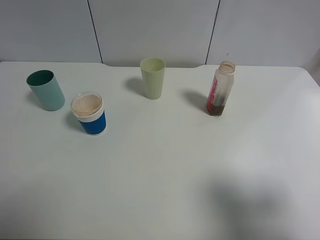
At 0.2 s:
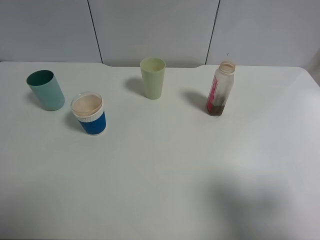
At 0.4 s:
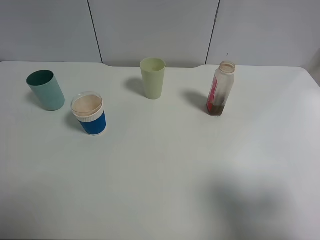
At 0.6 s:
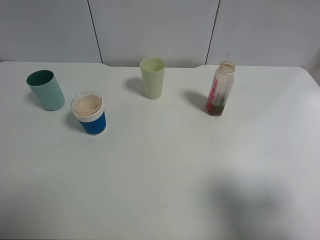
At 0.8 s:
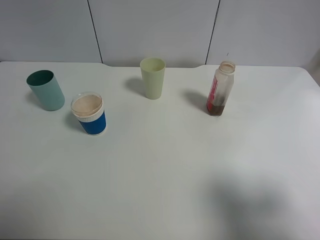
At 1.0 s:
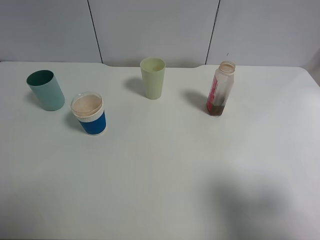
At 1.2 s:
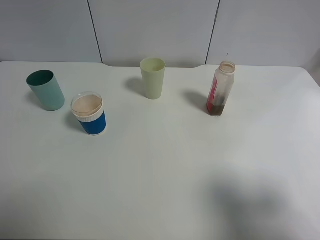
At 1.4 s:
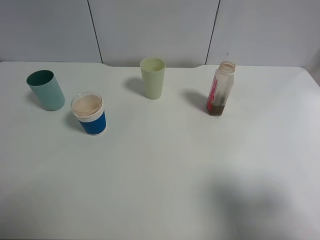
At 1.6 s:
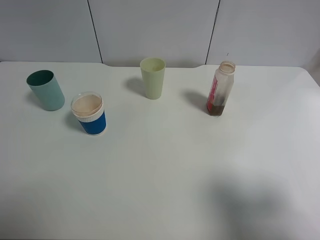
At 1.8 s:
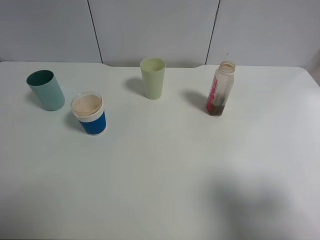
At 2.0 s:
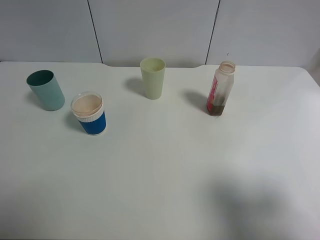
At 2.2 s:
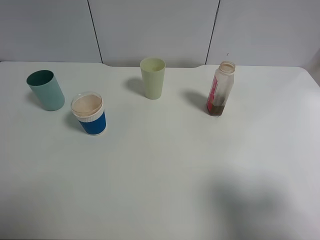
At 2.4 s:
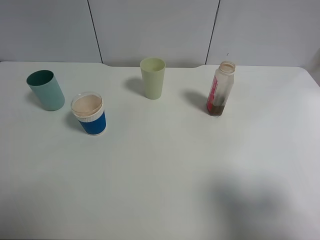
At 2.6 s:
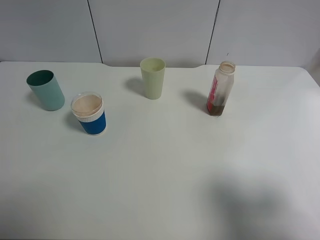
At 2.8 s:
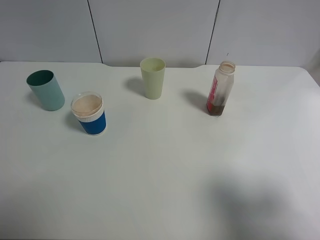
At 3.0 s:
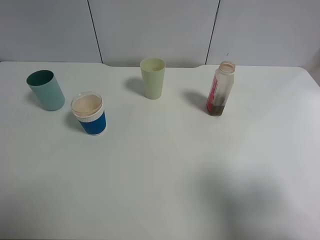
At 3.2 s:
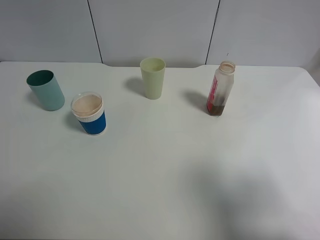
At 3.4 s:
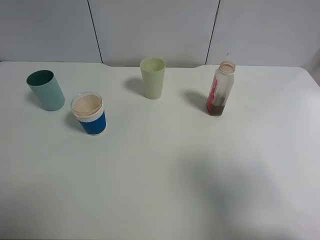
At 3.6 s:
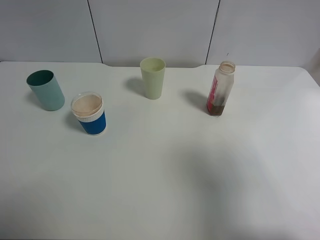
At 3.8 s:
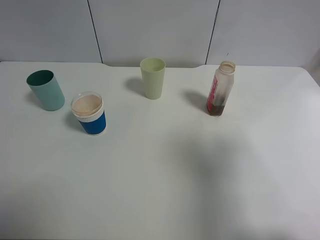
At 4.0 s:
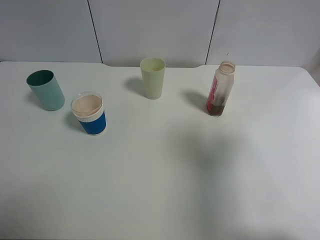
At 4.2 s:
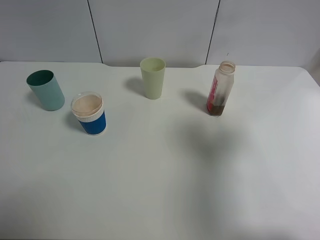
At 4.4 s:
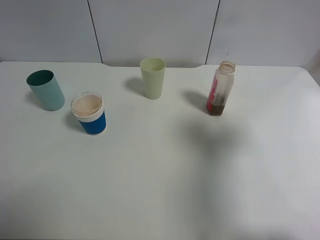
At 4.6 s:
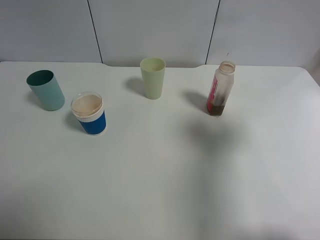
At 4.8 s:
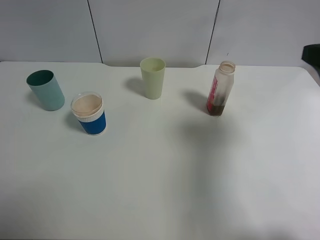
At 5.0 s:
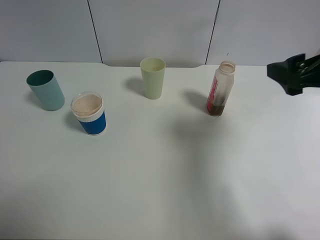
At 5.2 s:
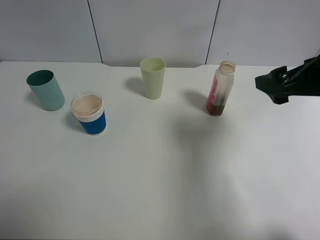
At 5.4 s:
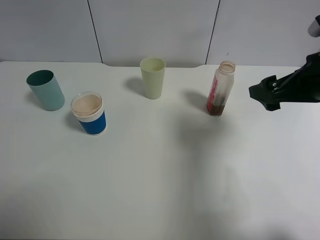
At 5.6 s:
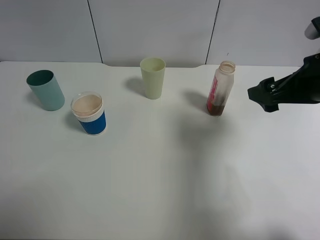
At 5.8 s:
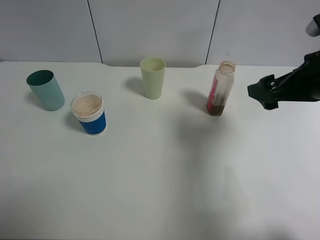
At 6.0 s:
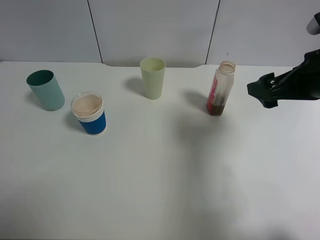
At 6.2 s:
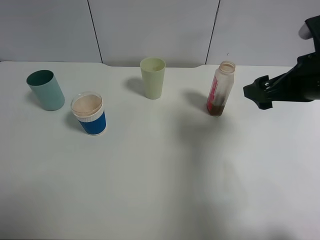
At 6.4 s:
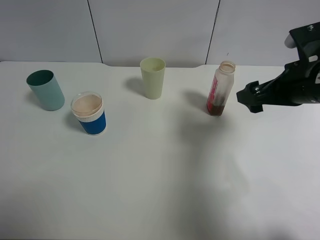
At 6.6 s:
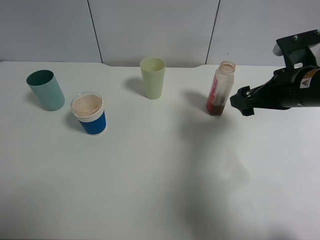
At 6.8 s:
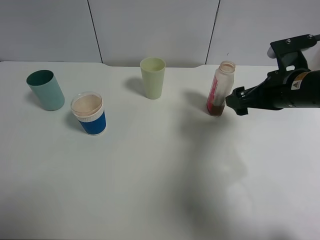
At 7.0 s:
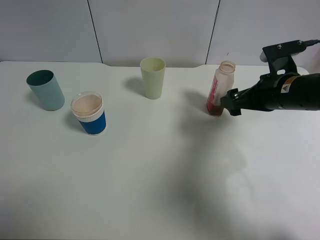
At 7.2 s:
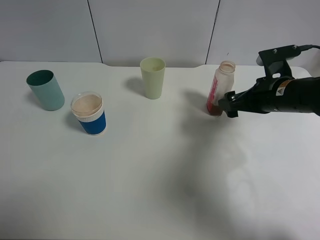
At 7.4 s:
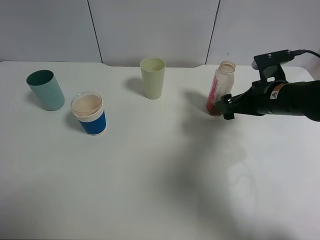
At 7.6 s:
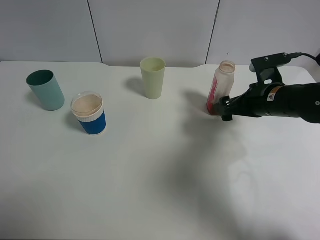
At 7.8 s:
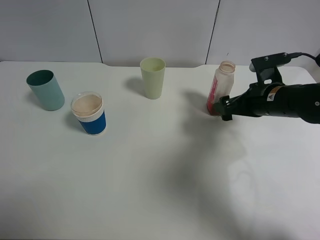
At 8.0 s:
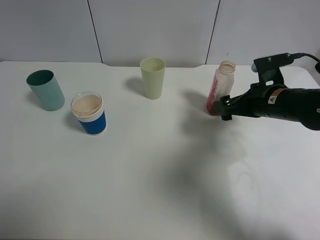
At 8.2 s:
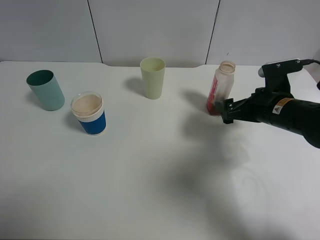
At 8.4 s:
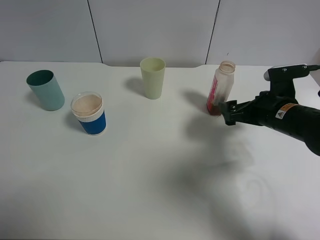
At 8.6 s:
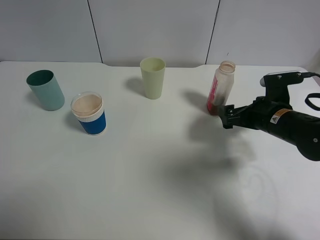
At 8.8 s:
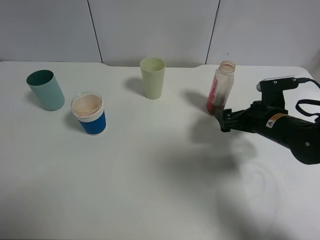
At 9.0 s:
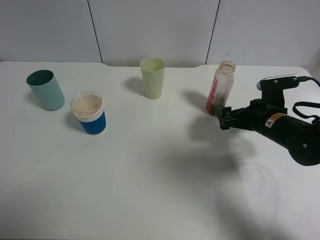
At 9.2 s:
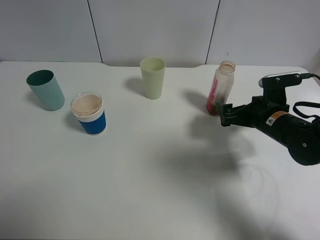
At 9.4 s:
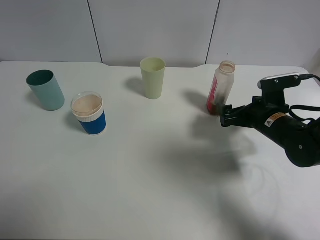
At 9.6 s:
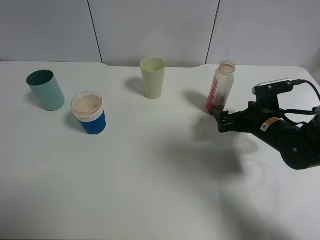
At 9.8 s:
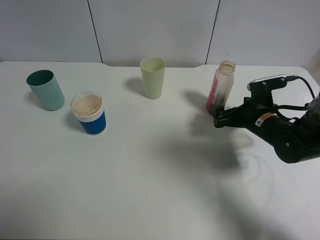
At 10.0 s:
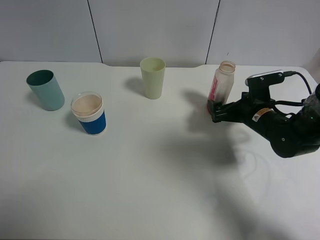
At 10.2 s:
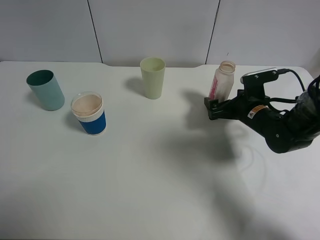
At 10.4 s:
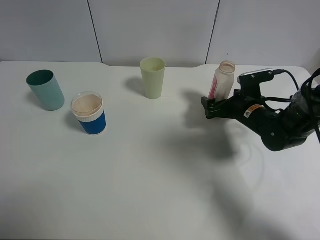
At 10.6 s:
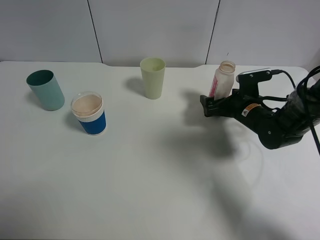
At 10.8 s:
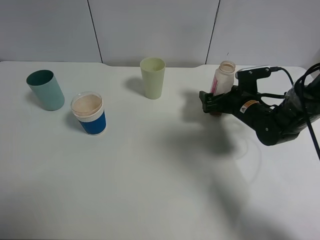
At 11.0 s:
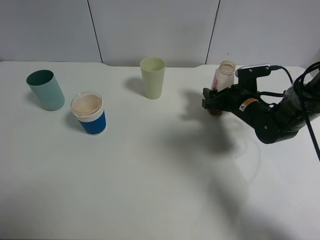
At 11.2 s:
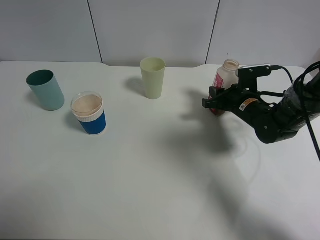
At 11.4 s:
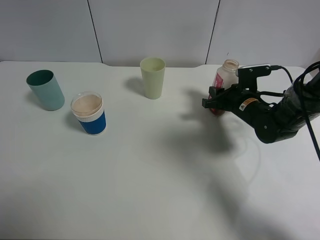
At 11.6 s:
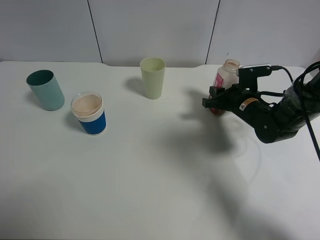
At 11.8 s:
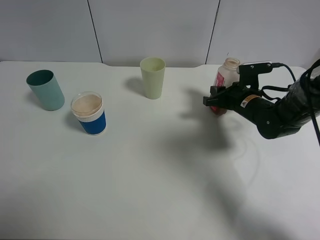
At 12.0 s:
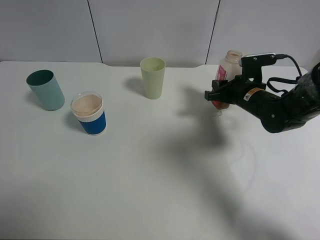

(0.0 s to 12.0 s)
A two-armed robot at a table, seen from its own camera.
Task of the whole recording: use a clamp to hold the bottle of the drink, pour the beverage into a random cup, then clamp the cup containing the drink and pour the drink into another random cup.
0.0 s - 1.6 s: Both grippers stay put.
3.0 s - 4.4 s: The right gripper moves forward, some 15 cm.
4.4 s - 6.0 s: The right gripper travels forward, downward and to the left by some 10 cm.
6.0 s - 7.6 s: The right gripper moves downward and forward, about 15 cm.
7.6 s - 9.0 s: There are only small adjustments of the grippers.
9.0 s - 10.4 s: The right gripper moves forward, about 5 cm.
10.4 s - 12.0 s: The right gripper closes up.

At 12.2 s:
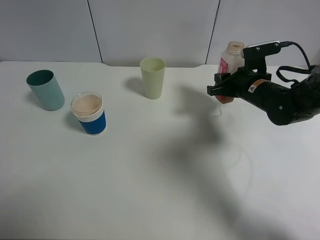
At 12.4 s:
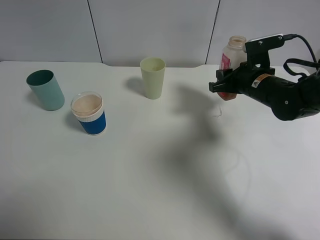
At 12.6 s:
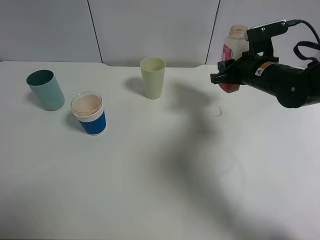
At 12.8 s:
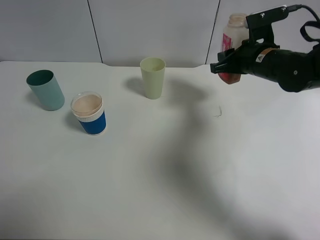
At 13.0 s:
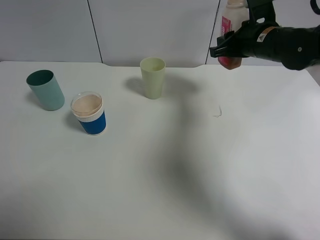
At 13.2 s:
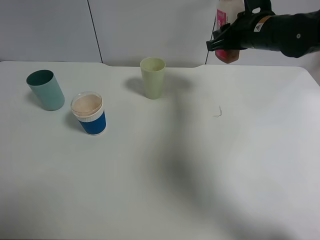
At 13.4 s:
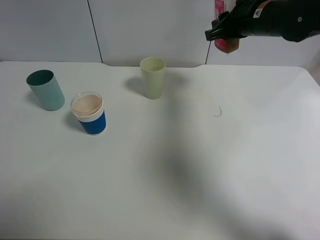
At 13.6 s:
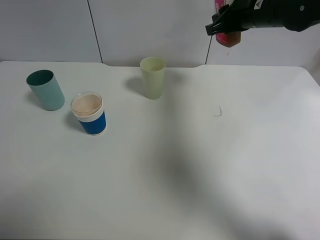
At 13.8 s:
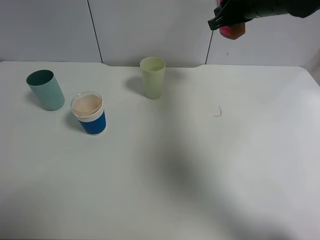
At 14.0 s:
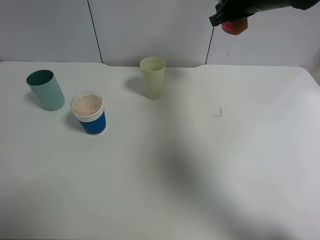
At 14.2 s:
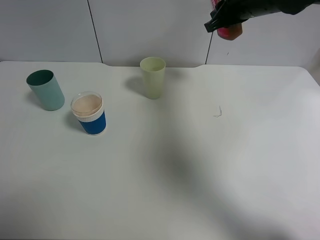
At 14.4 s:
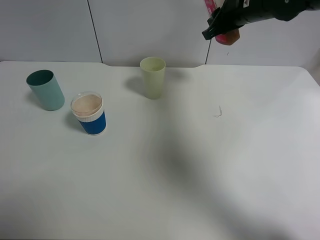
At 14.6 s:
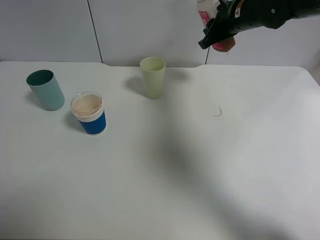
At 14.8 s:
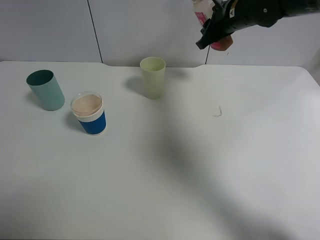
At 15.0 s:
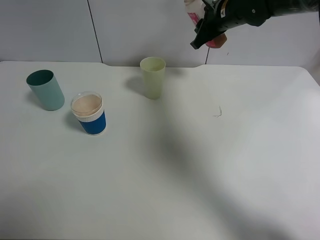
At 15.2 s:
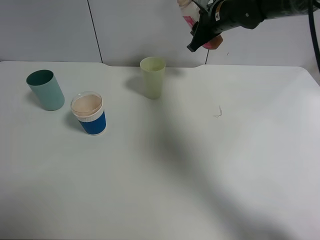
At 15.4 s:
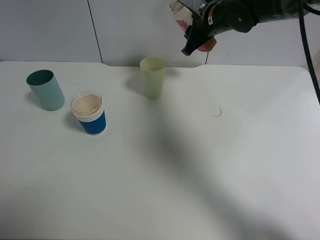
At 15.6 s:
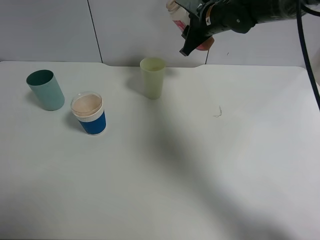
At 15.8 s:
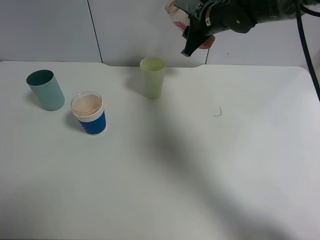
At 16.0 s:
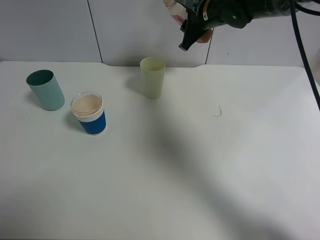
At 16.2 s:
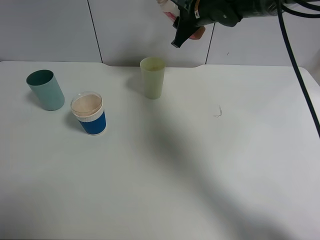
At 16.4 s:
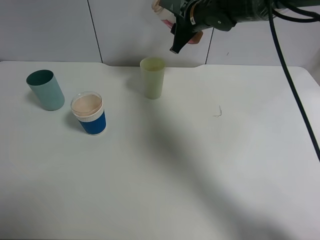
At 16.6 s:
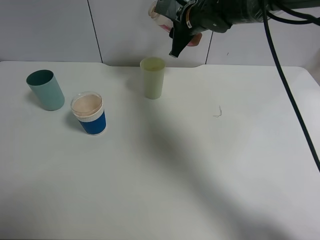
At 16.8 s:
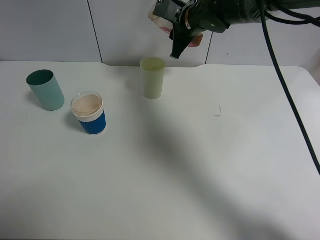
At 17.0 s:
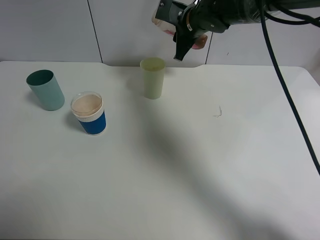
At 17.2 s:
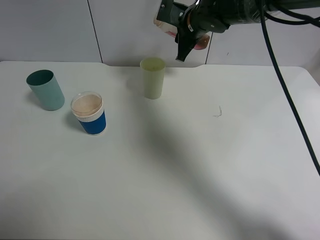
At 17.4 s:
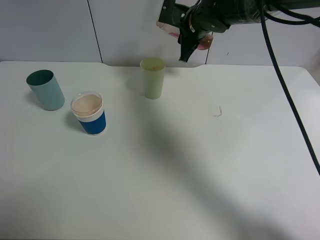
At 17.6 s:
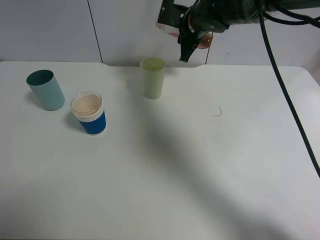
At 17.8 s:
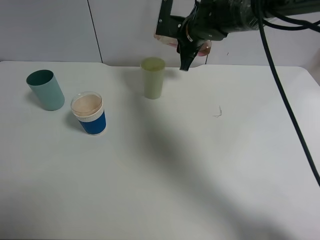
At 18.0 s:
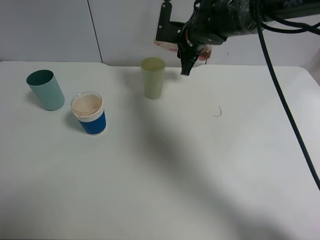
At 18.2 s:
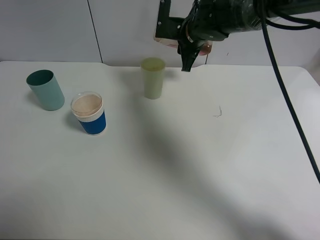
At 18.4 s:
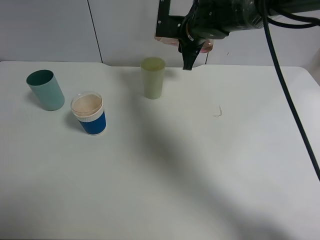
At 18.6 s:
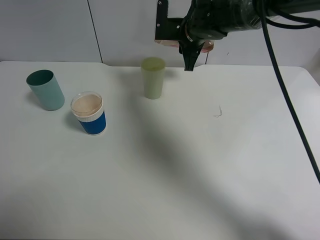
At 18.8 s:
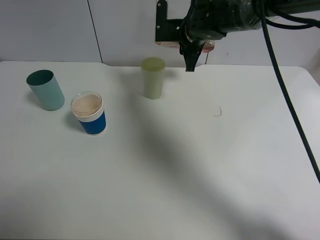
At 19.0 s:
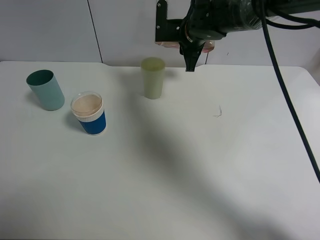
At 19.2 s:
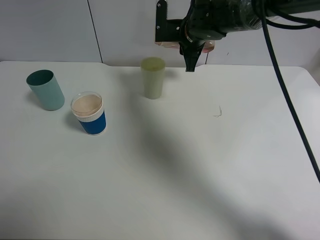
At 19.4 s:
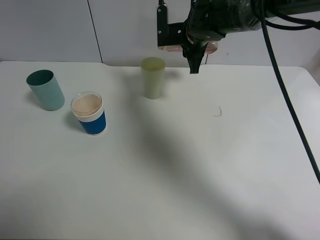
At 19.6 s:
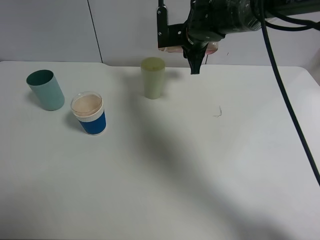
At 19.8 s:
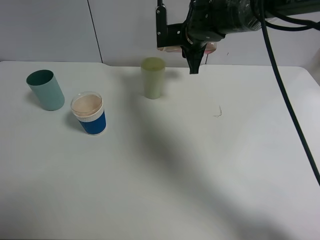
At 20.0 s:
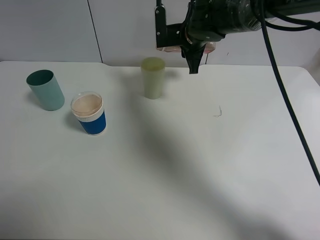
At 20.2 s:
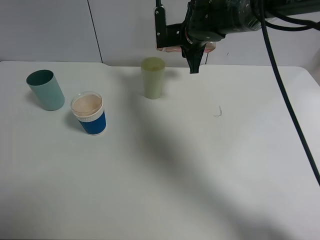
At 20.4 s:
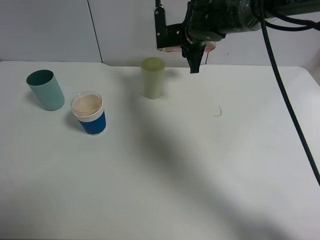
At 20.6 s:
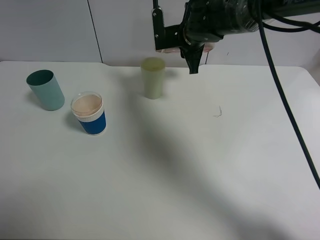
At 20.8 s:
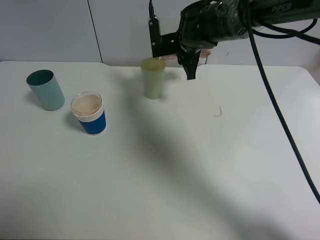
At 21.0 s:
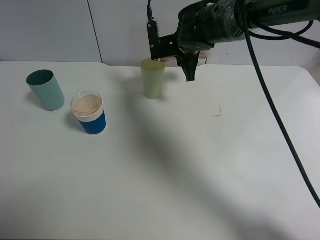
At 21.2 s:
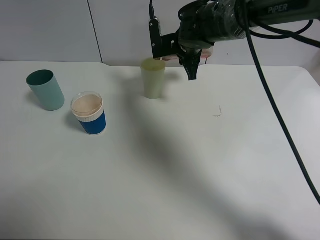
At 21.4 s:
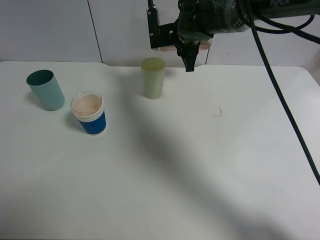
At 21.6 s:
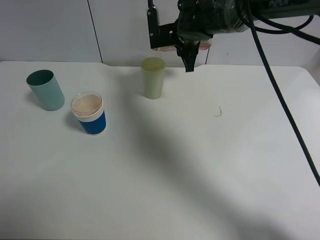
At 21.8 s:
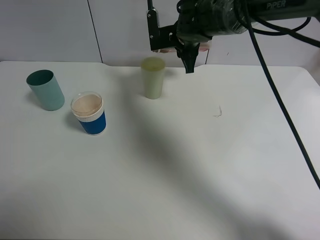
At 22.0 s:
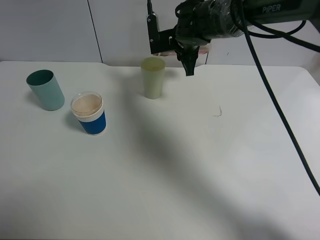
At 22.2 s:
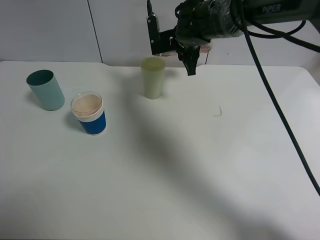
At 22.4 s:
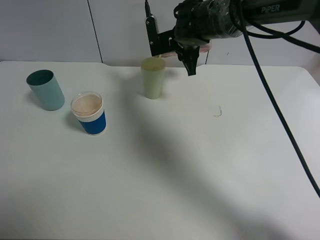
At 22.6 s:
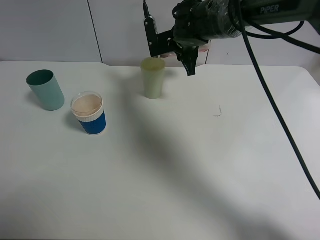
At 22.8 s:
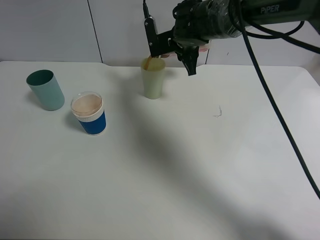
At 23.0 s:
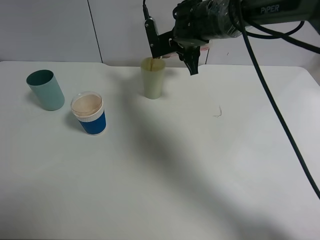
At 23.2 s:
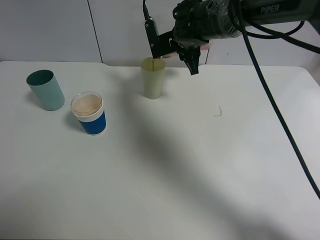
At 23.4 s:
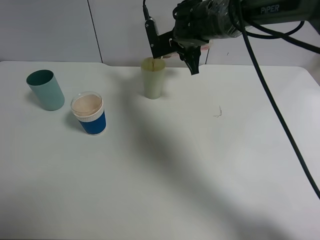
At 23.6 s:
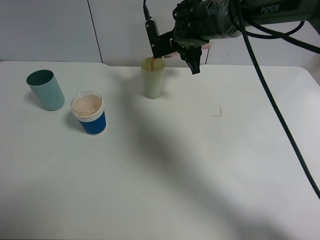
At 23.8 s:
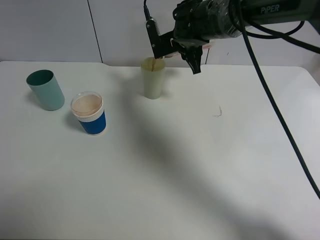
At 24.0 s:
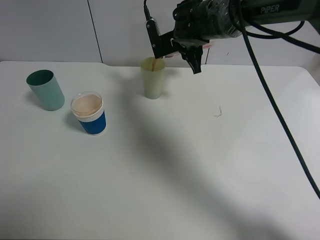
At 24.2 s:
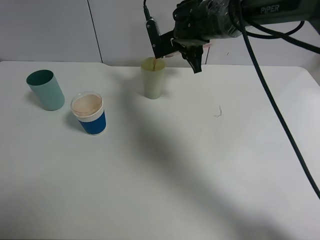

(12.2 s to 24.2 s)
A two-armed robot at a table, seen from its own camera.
Task of the whole recording: use a clamp to hold the bottle of the drink, pour the beverage into a random cup, then clamp the cup containing the drink and pour the drink into another random cup.
12.2 s - 13.8 s: The right gripper shifts approximately 15 cm upward.
13.8 s - 15.2 s: The right gripper goes approximately 10 cm downward, forward and to the left.
15.2 s - 16.6 s: The right gripper moves to the left, about 5 cm.
16.6 s - 18.2 s: The grippers make only small movements.
18.2 s - 21.2 s: The grippers make only small movements.
21.2 s - 24.2 s: The grippers stay close to where they were, moving slightly.
